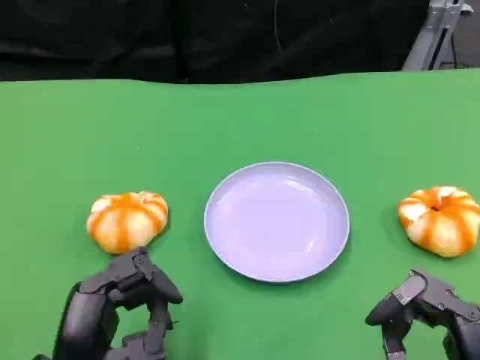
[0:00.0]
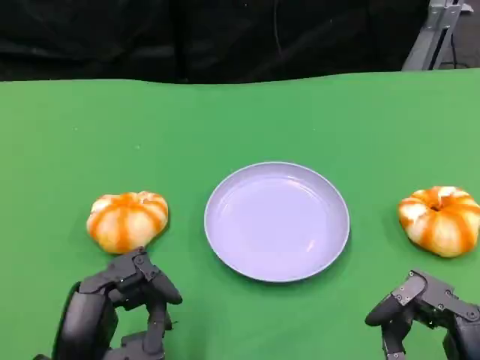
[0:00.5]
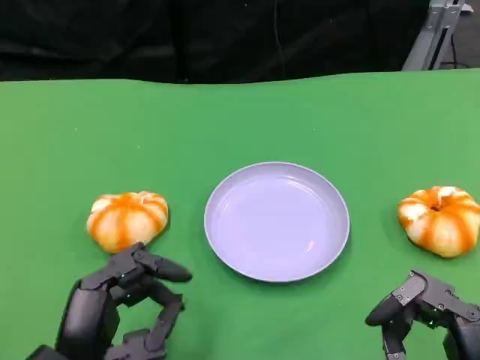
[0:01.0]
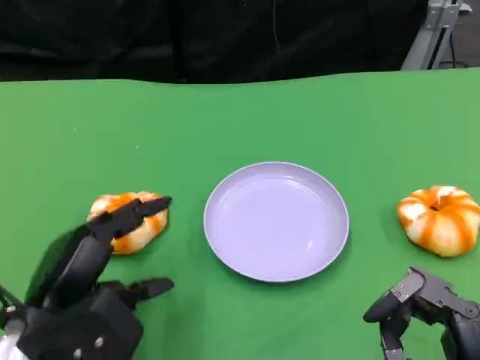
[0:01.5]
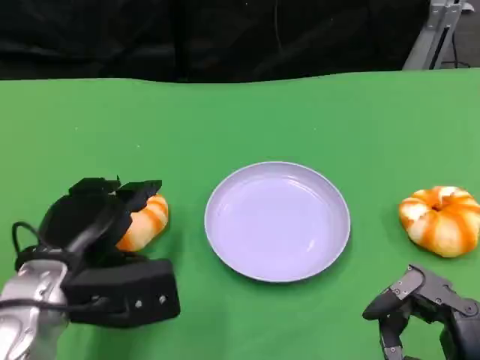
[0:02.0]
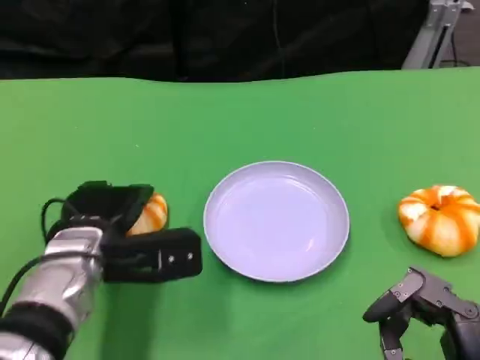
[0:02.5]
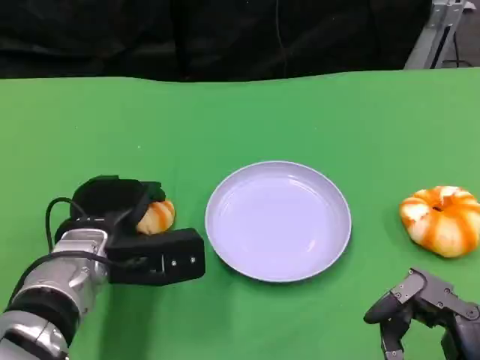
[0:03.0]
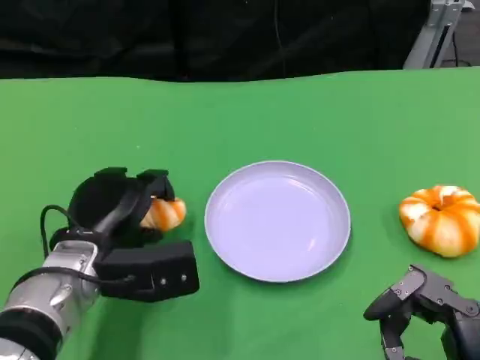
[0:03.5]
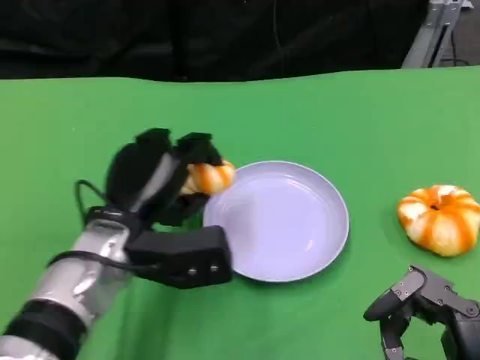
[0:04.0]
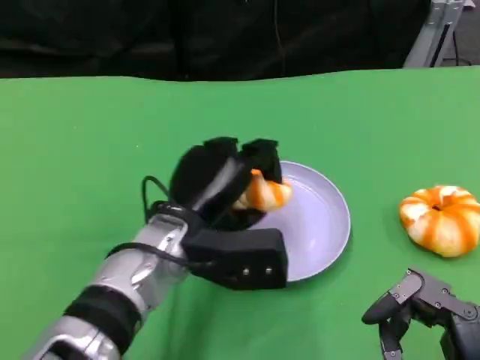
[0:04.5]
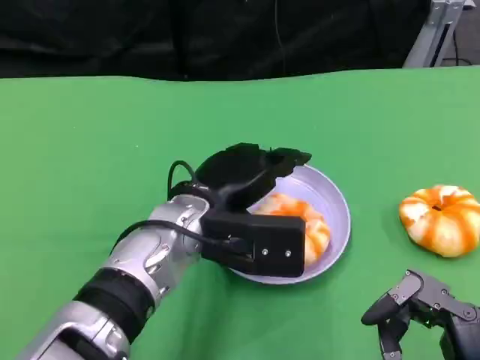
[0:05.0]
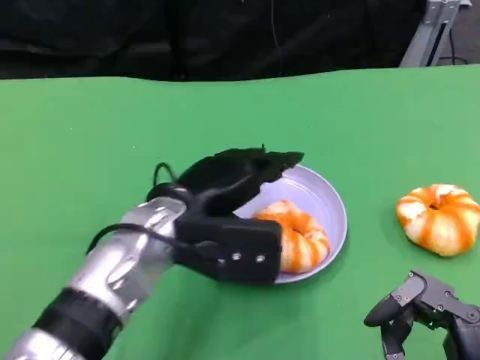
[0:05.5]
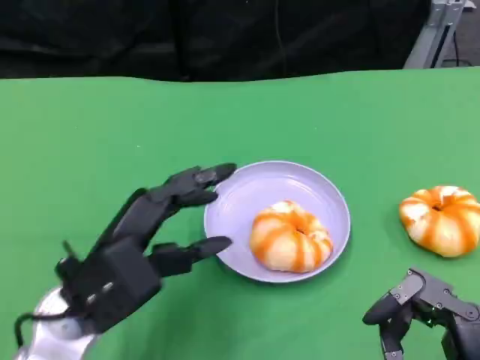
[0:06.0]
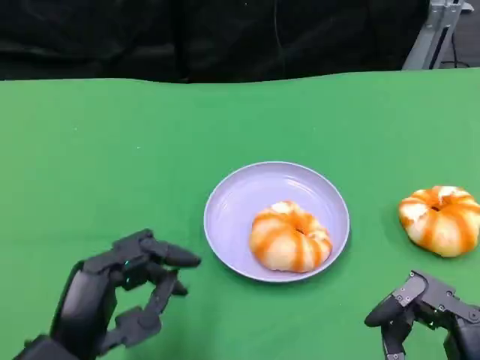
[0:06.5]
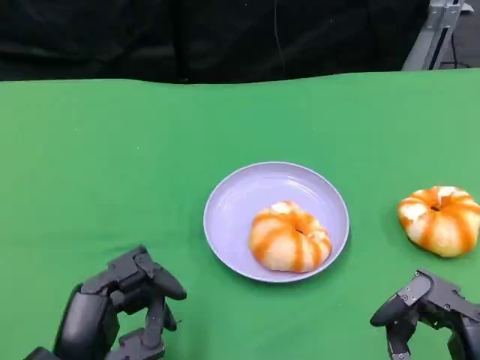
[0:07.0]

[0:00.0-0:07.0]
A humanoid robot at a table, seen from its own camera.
Task of the whole recording: Grasp the bread from the table and place it into the plate.
0:00.0 to 0:02.0: The left hand moves forward, roughly 10 cm.
0:03.5 to 0:05.0: The left hand heads to the right and upward, covering some 10 cm.
0:05.0 to 0:07.0: The left hand goes about 20 cm backward and to the left.

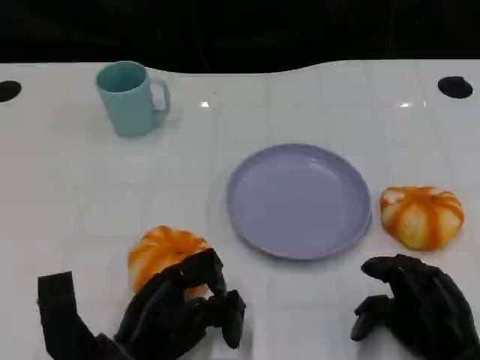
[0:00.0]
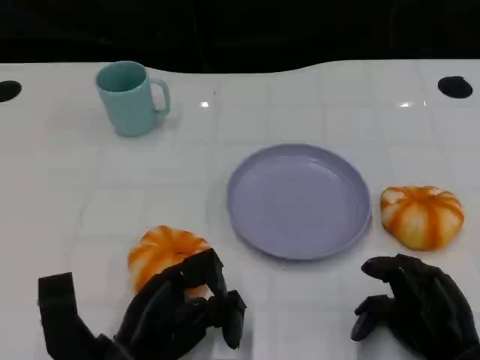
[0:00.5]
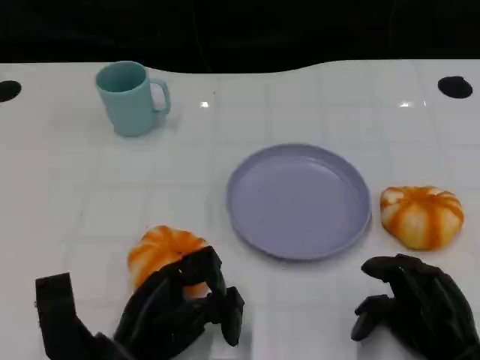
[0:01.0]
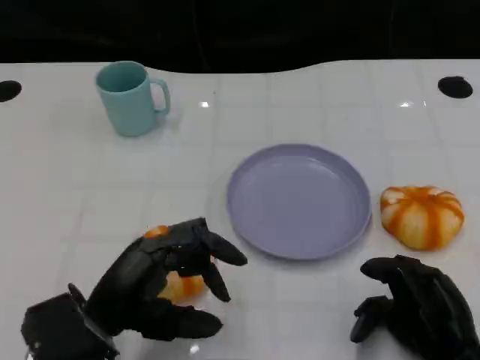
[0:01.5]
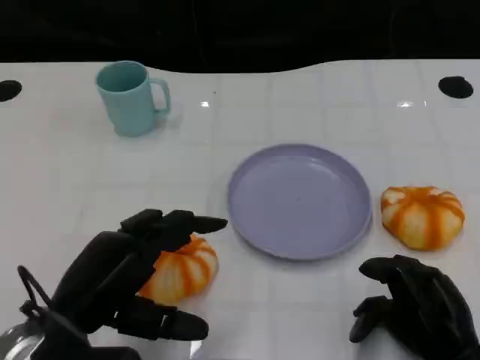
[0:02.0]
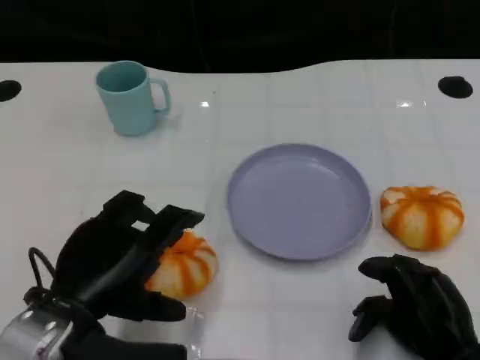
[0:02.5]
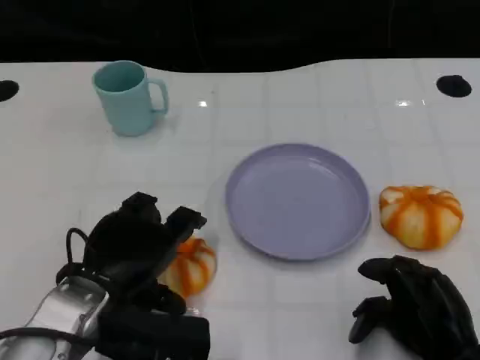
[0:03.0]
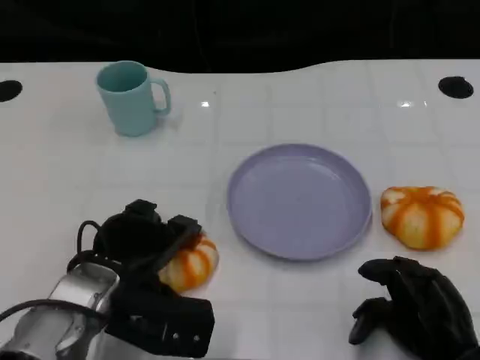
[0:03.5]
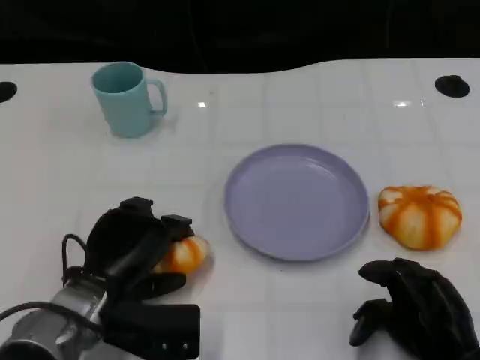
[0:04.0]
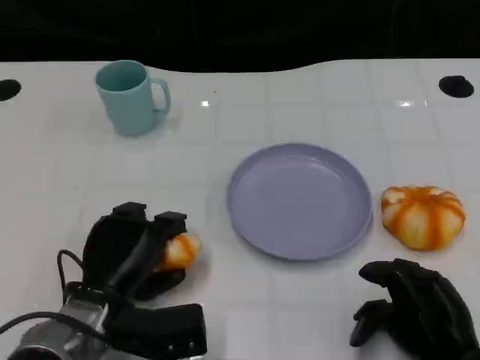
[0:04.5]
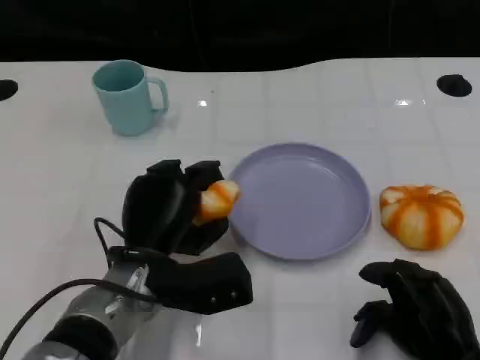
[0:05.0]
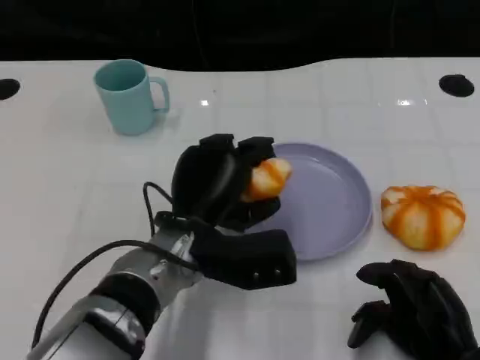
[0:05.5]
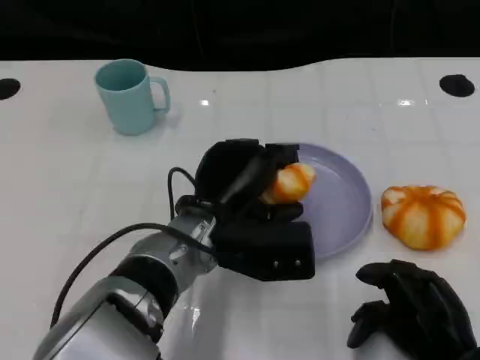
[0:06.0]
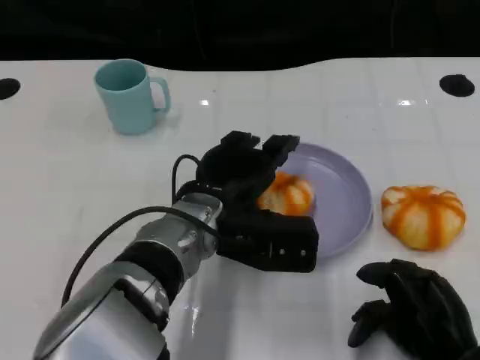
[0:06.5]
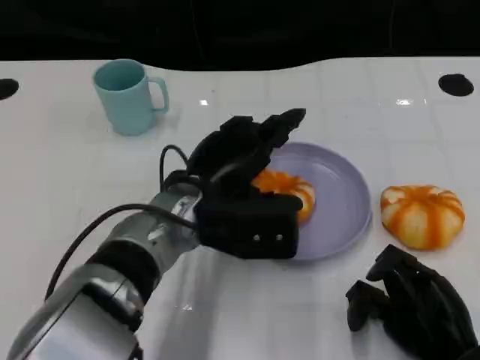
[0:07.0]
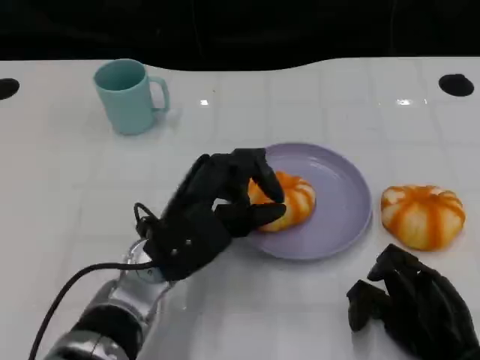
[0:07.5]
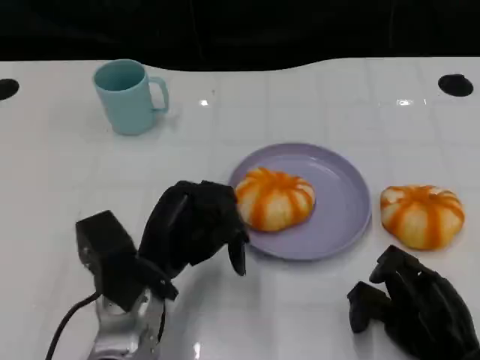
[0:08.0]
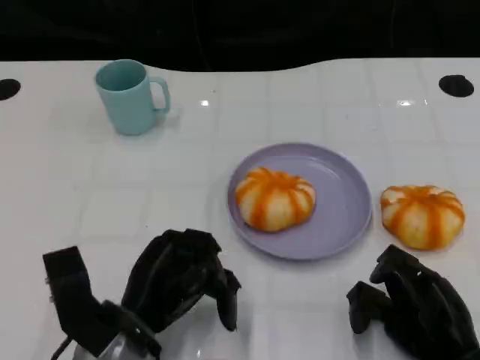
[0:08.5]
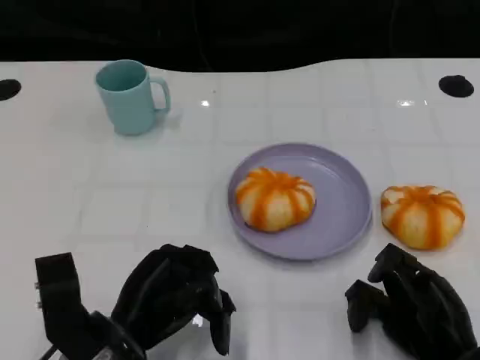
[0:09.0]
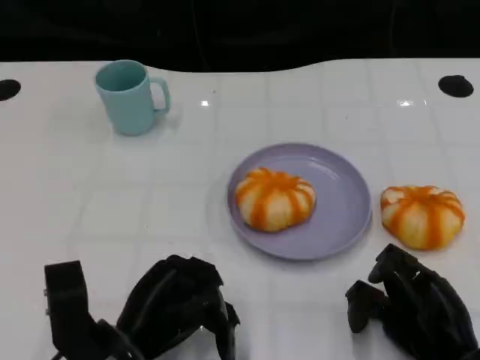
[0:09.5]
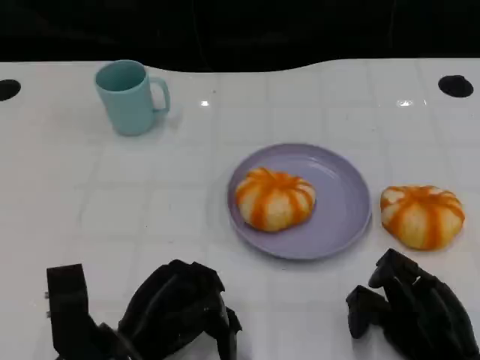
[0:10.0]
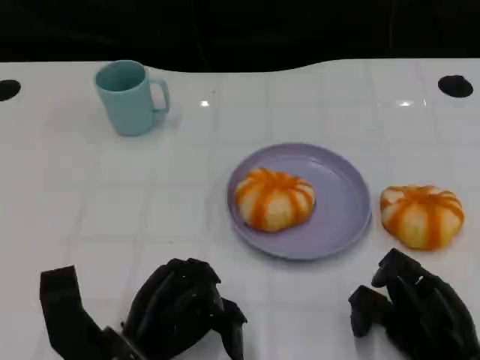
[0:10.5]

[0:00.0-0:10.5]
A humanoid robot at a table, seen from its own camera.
Task of the whole recording: Grasp the bread from the table and place it into the plate.
0:00.0 to 0:02.0: The left hand goes approximately 10 cm upward.
0:02.0 to 0:04.0: The left hand goes approximately 10 cm downward and forward.
0:04.0 to 0:06.5: The left hand moves to the right, upward and forward, about 15 cm.
0:06.5 to 0:08.5: The left hand moves to the left, backward and downward, some 15 cm.
0:08.5 to 0:10.5: The hands stay close to where they were, moving slightly.

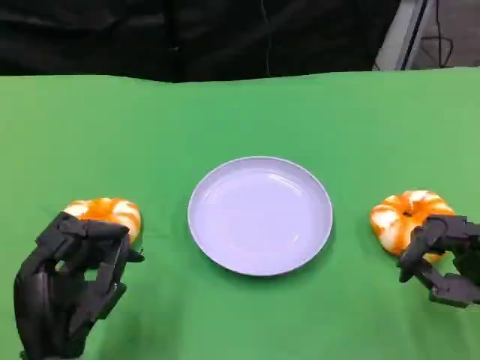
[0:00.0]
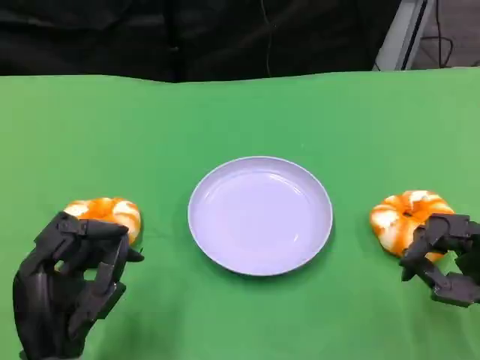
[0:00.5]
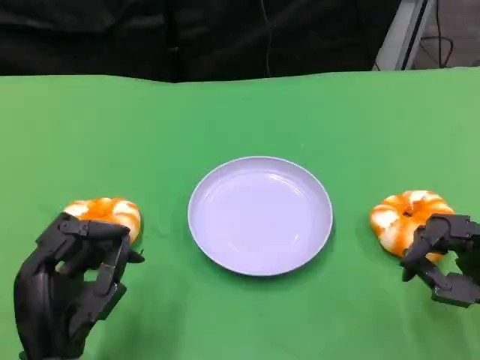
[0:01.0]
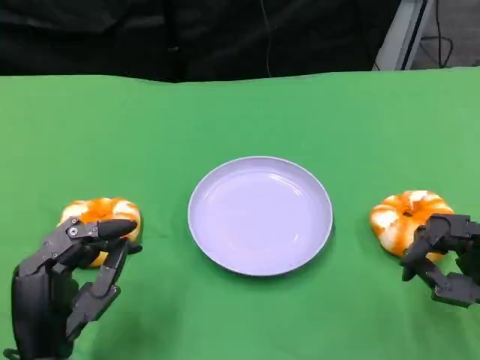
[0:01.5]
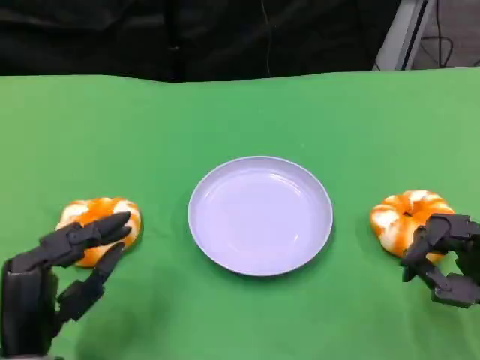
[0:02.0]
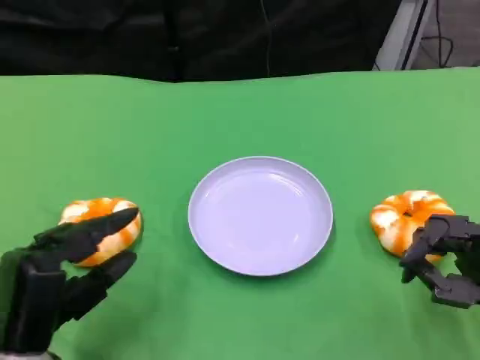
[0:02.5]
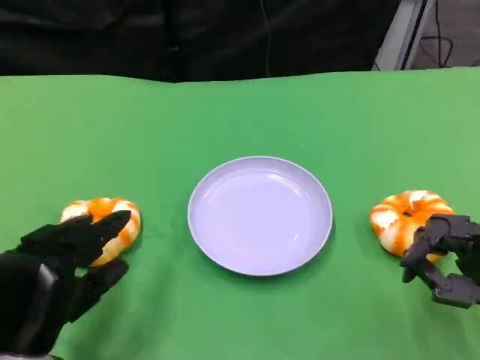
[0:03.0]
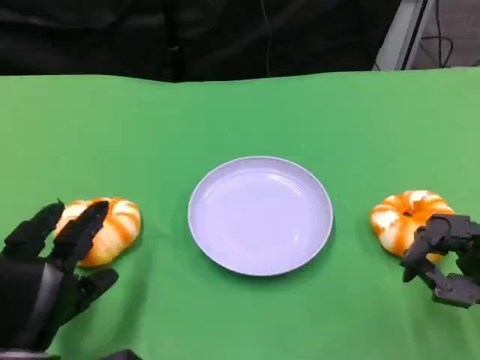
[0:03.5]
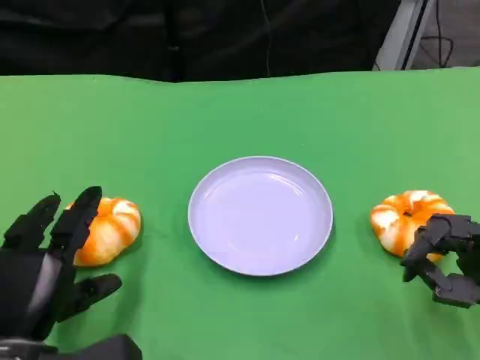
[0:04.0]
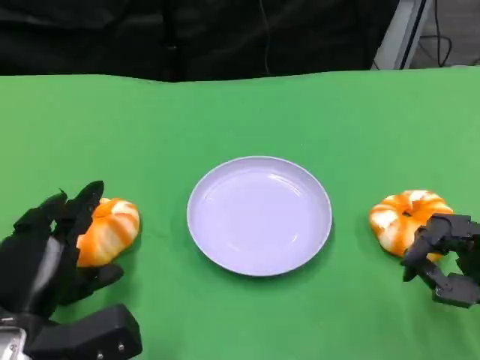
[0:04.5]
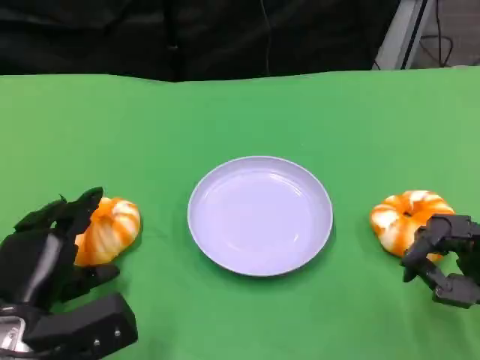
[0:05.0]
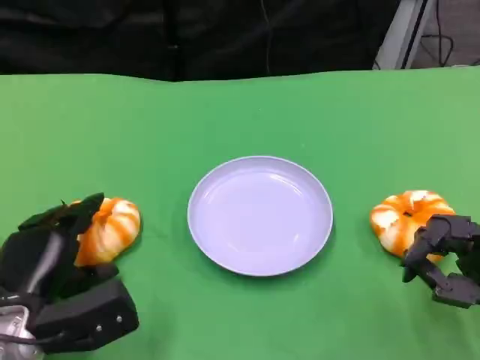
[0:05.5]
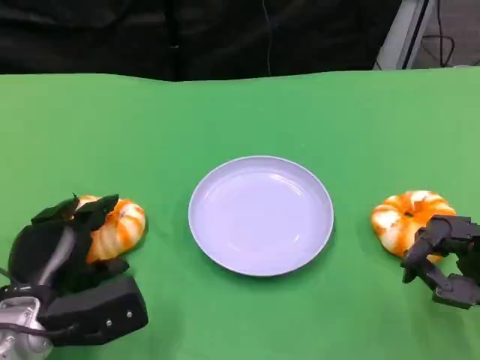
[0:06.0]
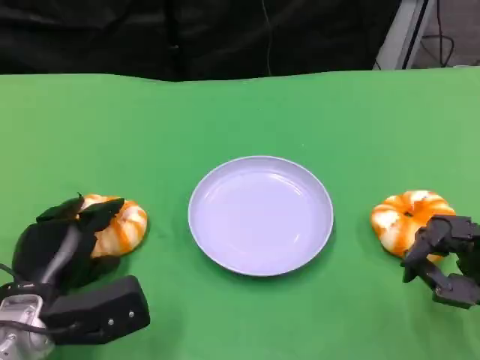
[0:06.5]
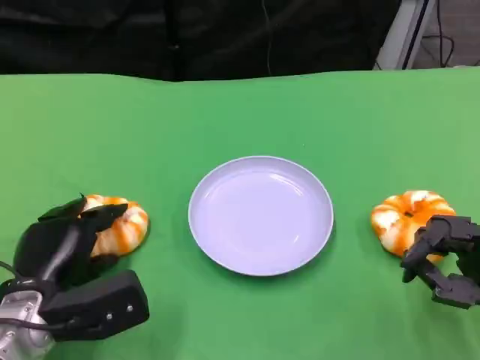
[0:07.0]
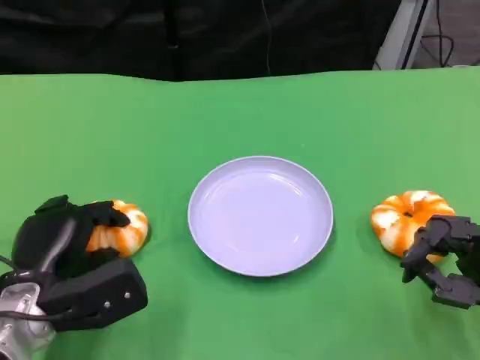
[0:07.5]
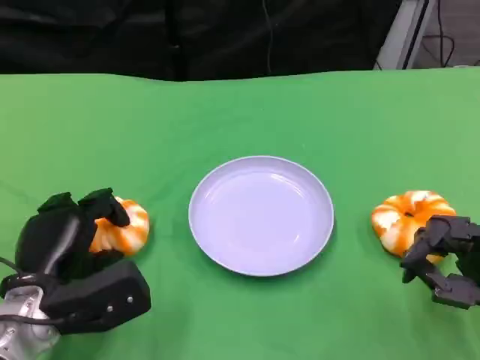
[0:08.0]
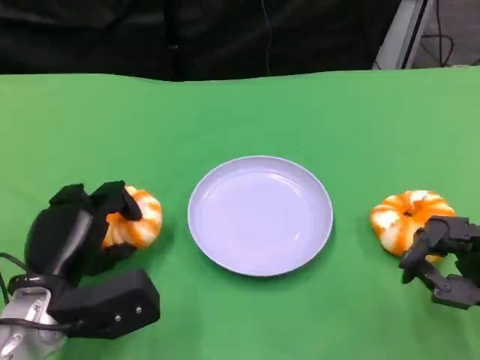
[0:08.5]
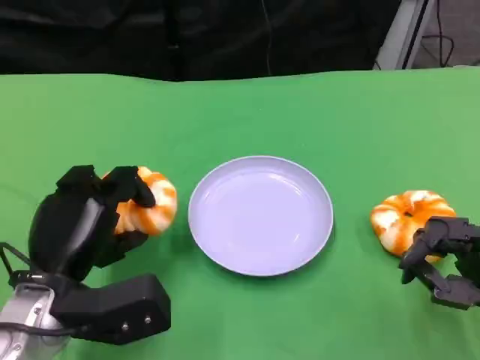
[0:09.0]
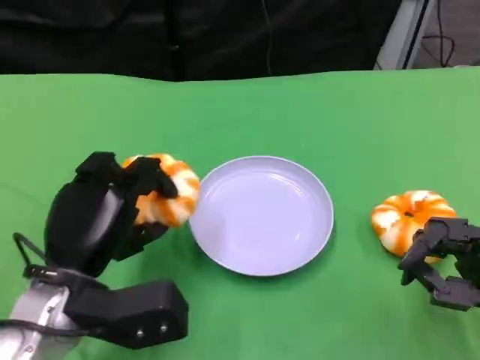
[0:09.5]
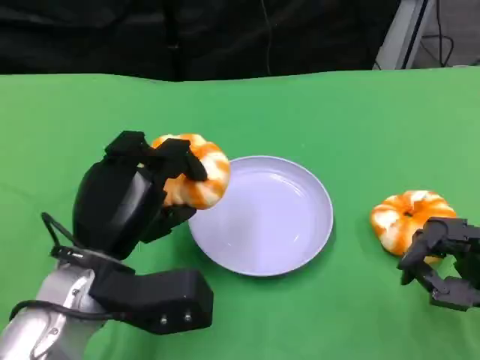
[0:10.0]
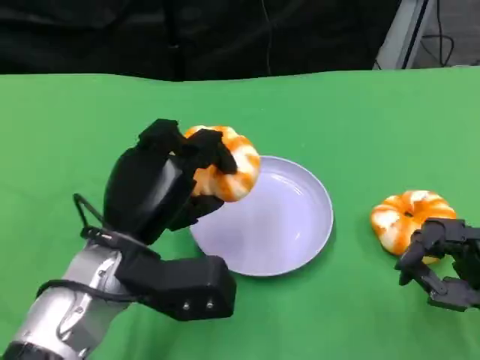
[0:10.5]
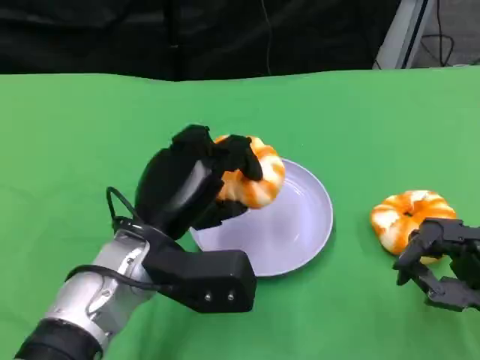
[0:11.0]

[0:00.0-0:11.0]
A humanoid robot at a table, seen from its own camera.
Task of the whole recording: Grasp the bread from the table and place it into the plate.
0:03.5 to 0:05.5: The left hand is displaced forward by some 5 cm.
0:05.5 to 0:07.5: The hands move only a little.
0:07.5 to 0:09.0: The left hand moves roughly 5 cm.
0:09.0 to 0:11.0: The left hand heads to the right, covering about 10 cm.
